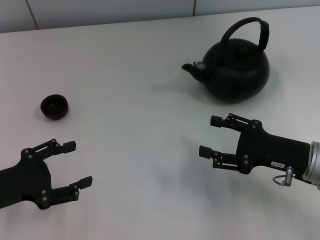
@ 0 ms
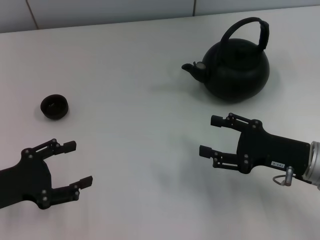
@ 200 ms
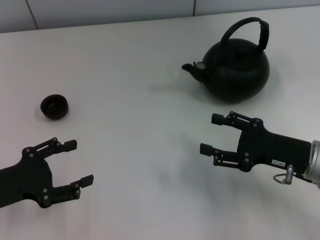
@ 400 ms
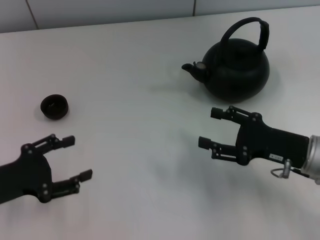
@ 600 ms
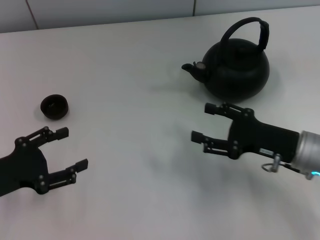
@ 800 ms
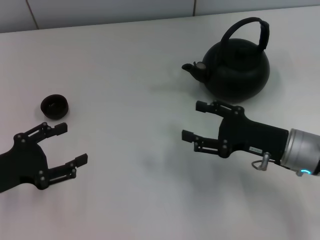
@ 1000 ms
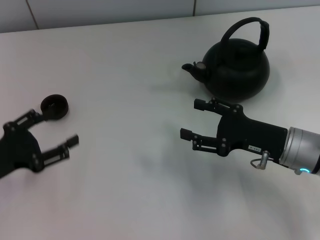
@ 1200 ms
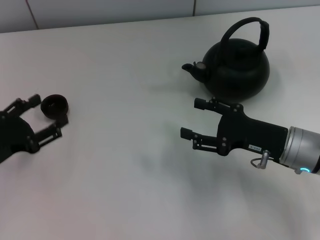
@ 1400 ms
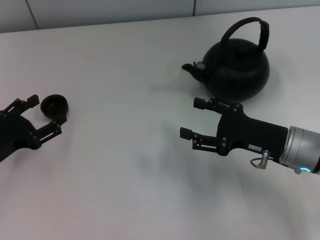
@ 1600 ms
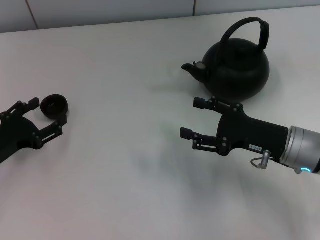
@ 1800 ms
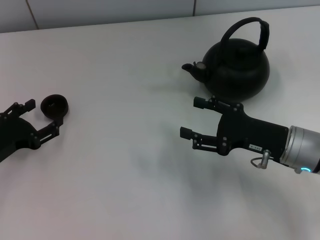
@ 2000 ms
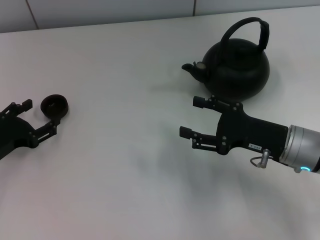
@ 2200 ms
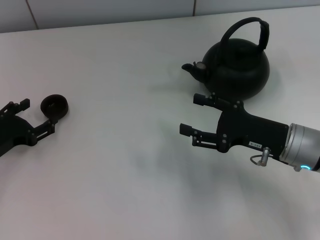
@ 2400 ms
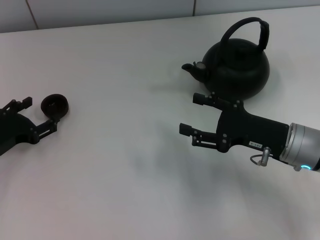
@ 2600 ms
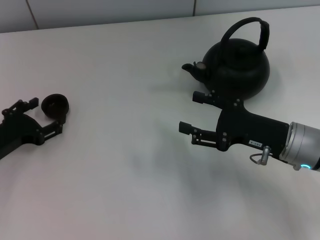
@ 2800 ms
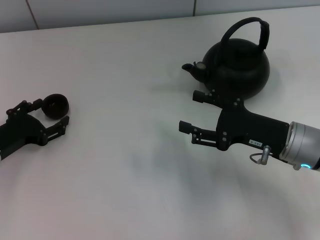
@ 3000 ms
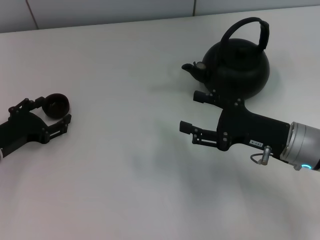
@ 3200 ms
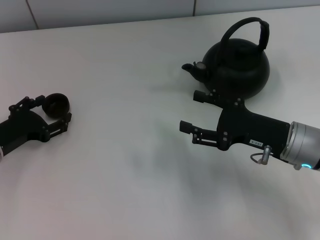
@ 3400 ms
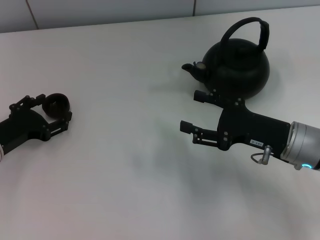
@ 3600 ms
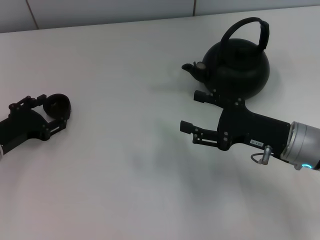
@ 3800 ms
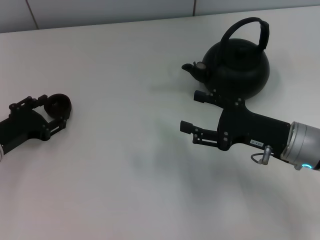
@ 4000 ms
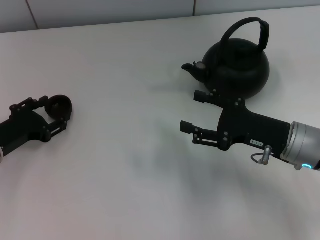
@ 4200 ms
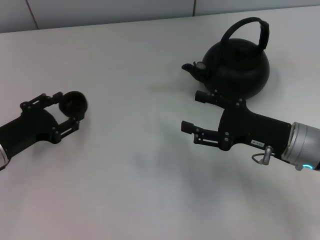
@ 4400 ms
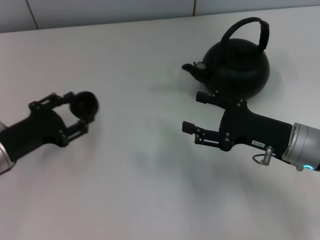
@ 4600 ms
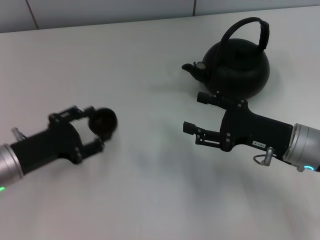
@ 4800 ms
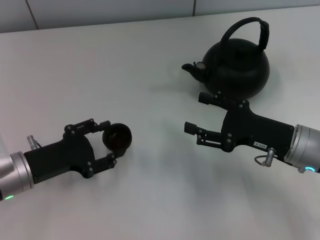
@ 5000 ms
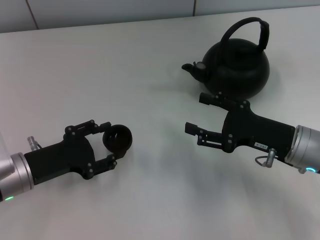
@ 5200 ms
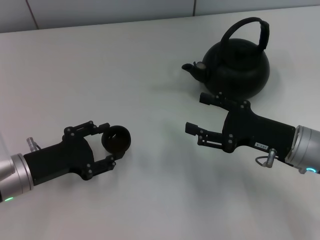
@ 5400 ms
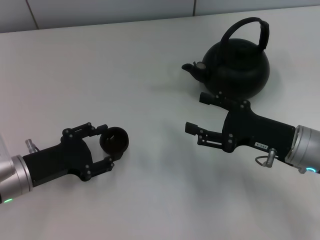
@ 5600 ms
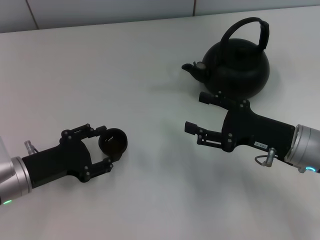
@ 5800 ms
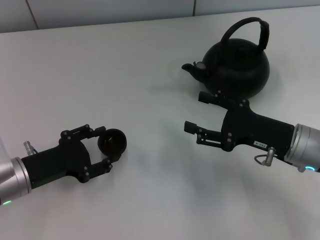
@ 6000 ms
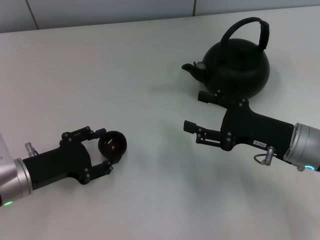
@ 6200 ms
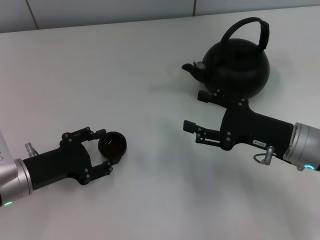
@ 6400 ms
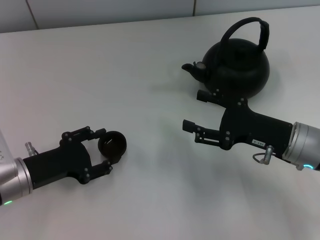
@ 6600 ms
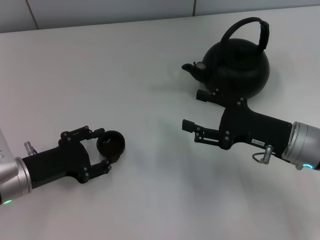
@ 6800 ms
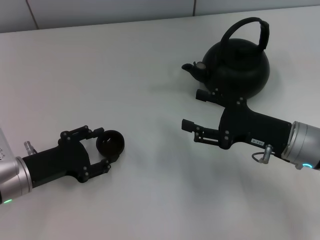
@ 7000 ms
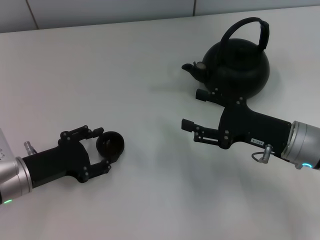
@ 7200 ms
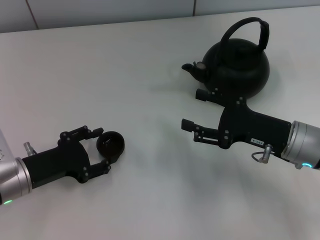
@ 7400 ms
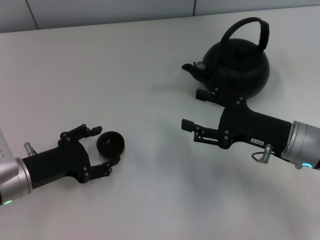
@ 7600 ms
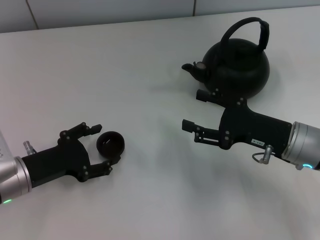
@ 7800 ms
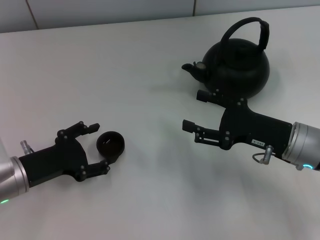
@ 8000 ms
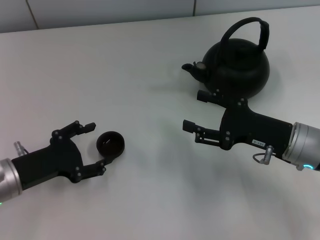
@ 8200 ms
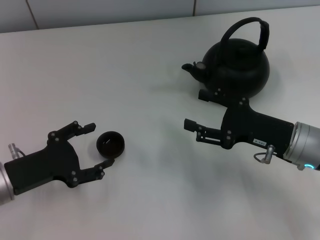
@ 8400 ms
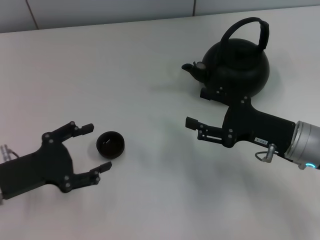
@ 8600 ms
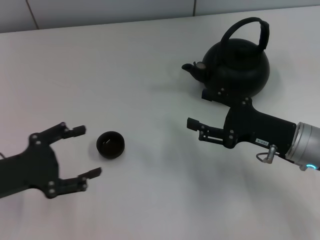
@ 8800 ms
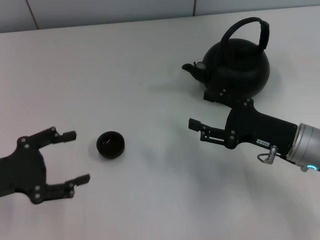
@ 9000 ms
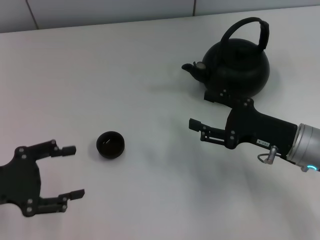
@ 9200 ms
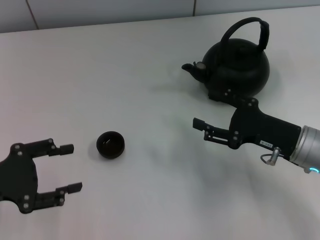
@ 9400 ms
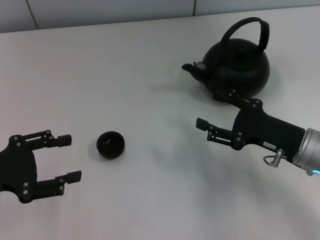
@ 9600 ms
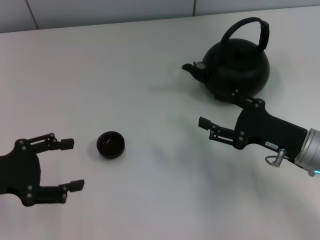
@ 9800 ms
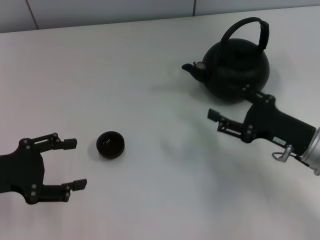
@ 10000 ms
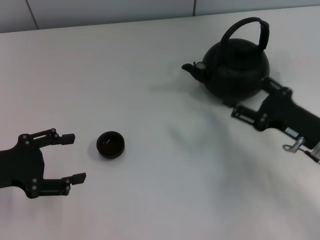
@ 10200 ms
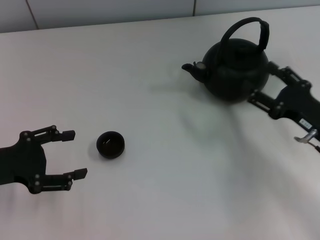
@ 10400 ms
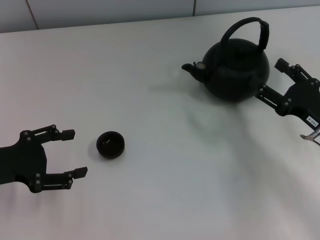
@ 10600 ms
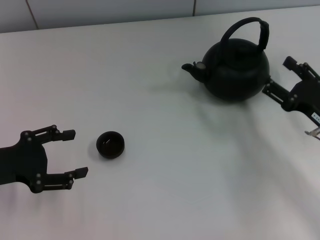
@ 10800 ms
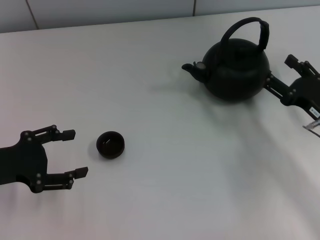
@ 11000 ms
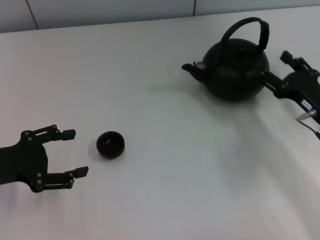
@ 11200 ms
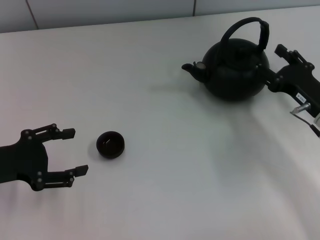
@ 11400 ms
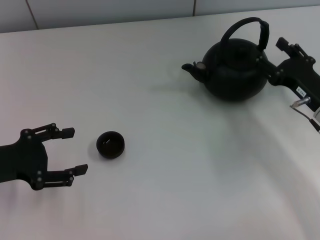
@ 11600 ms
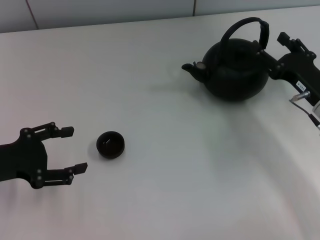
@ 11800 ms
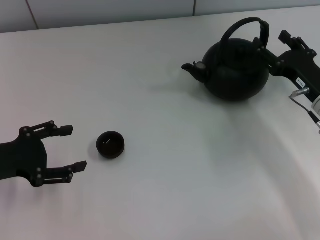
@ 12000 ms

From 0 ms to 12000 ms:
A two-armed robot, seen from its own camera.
Task of the whole recording: Grasp the handle of the teapot with one hand and pour tea into the teacup.
Step, from 0 ms to 4600 ms: Pick up the teacup with the left gripper.
Step, from 4800 ms to 8400 ms: Place the teacup in the center of view with the left gripper.
From 1600 ms to 3000 ms: The grippers make only small movements.
From 3000 ms to 4400 ms: The left gripper closes its fingers.
From 4400 ms to 6000 ms: The grippers move only a little.
From 6000 ms to 7600 ms: The left gripper opens its fingers.
From 7600 ms to 9000 ms: The left gripper goes roughly 10 cm upward and to the left.
From 9000 ms to 10400 ms: The left gripper opens up; the right gripper moves approximately 5 cm.
From 10400 ms to 12000 ms: The right gripper shifts about 5 cm forward.

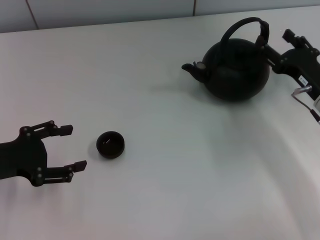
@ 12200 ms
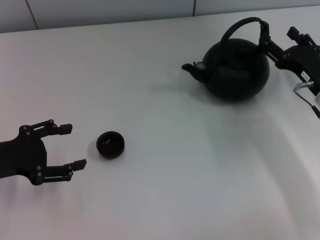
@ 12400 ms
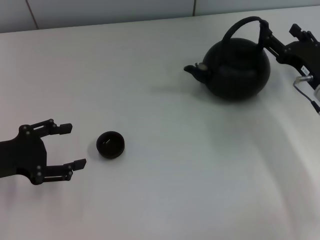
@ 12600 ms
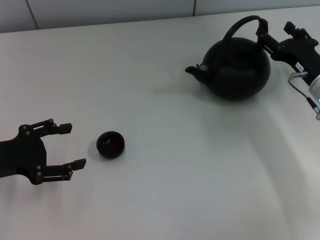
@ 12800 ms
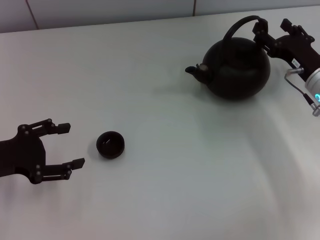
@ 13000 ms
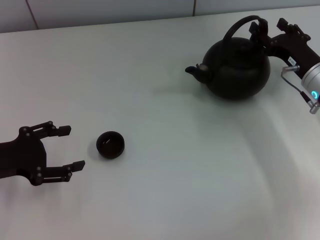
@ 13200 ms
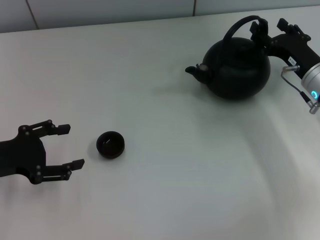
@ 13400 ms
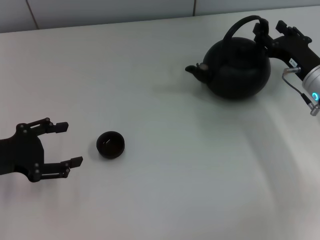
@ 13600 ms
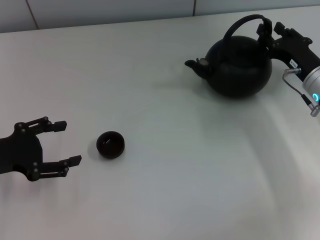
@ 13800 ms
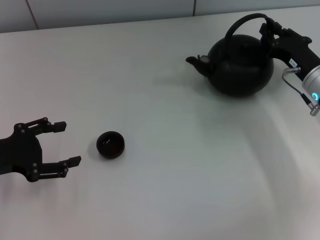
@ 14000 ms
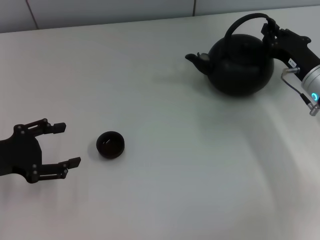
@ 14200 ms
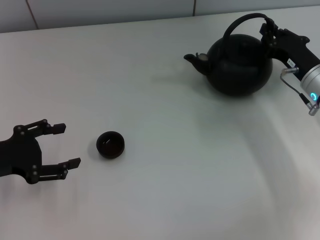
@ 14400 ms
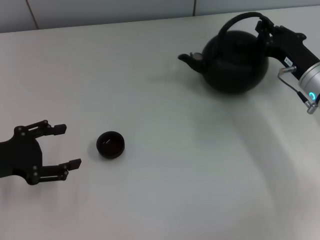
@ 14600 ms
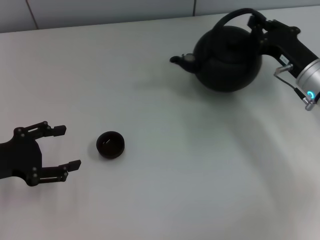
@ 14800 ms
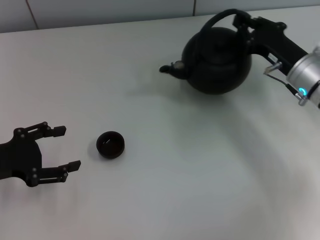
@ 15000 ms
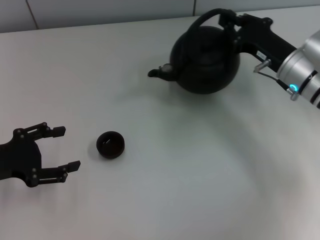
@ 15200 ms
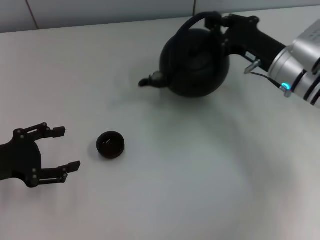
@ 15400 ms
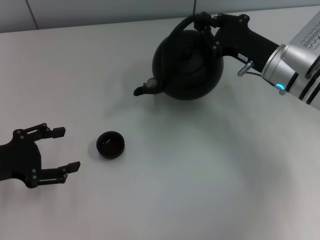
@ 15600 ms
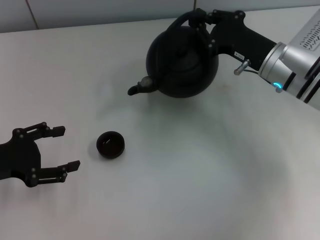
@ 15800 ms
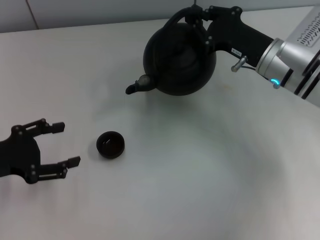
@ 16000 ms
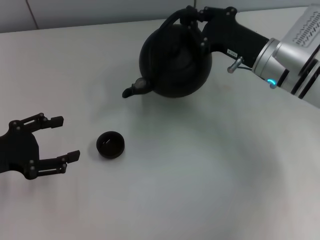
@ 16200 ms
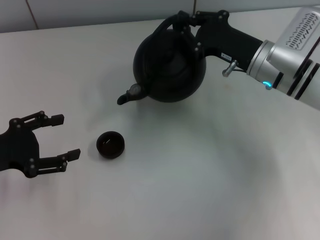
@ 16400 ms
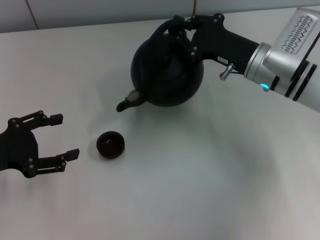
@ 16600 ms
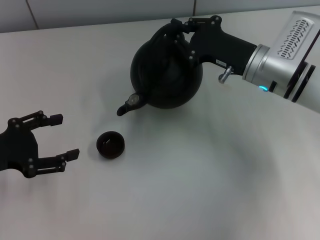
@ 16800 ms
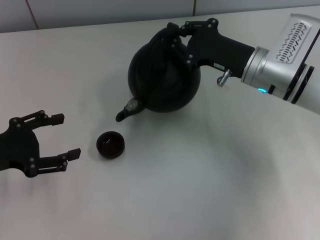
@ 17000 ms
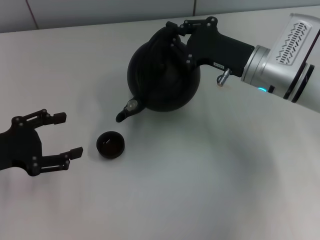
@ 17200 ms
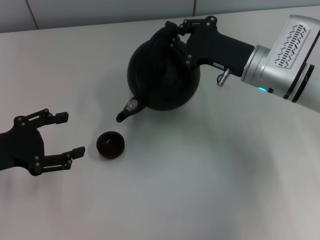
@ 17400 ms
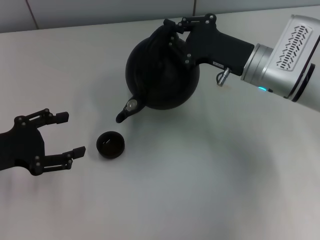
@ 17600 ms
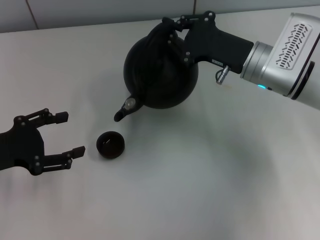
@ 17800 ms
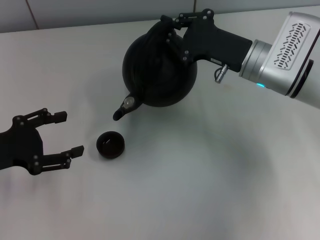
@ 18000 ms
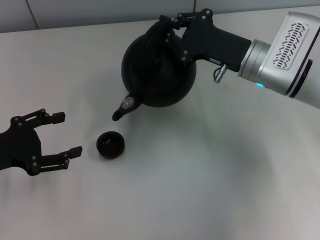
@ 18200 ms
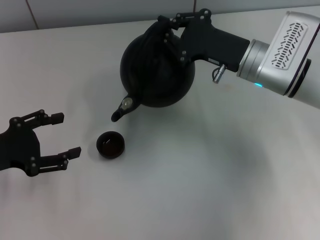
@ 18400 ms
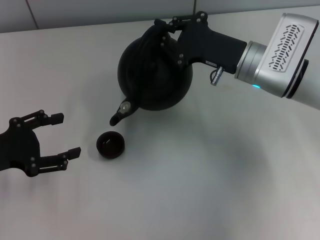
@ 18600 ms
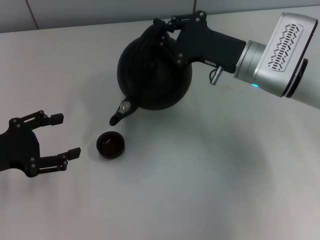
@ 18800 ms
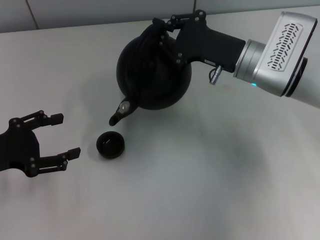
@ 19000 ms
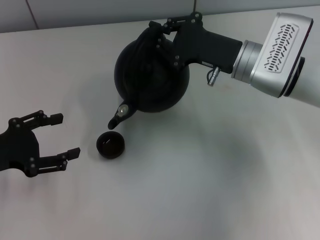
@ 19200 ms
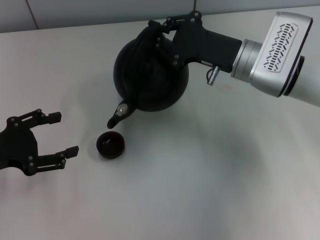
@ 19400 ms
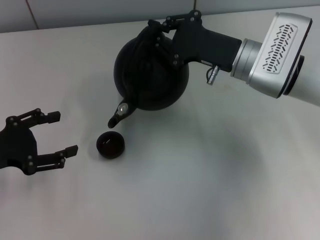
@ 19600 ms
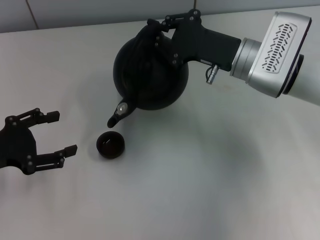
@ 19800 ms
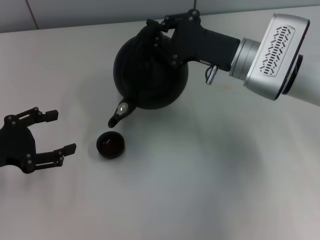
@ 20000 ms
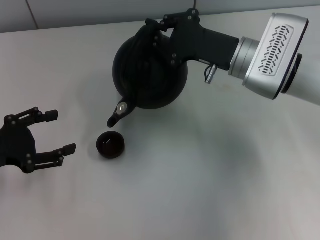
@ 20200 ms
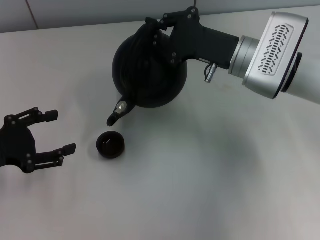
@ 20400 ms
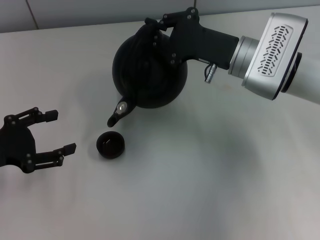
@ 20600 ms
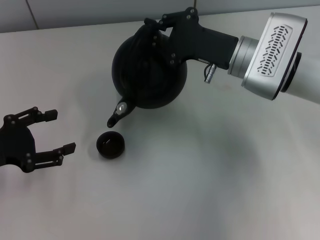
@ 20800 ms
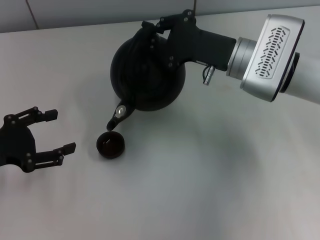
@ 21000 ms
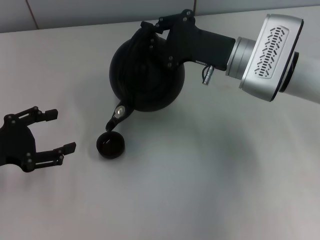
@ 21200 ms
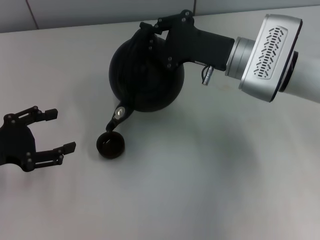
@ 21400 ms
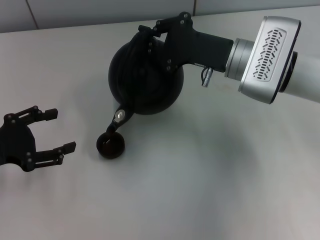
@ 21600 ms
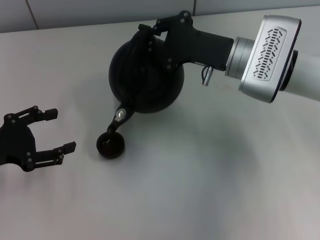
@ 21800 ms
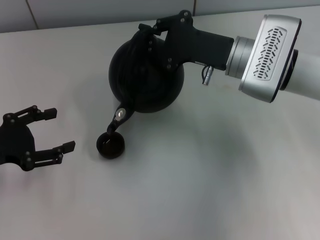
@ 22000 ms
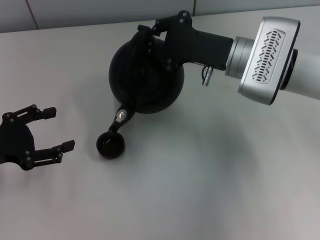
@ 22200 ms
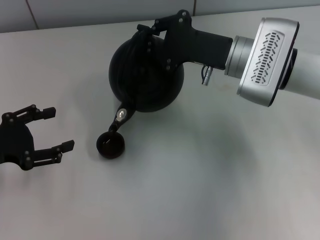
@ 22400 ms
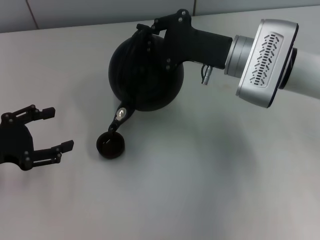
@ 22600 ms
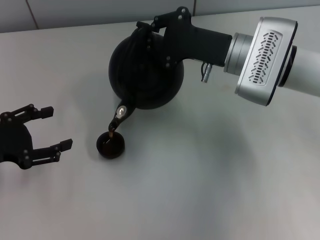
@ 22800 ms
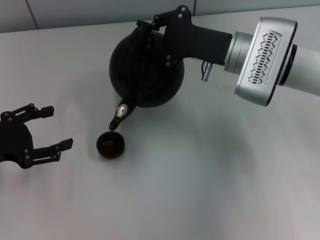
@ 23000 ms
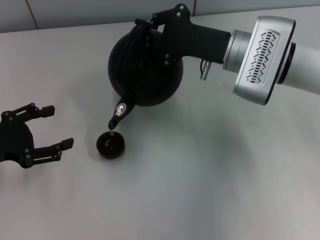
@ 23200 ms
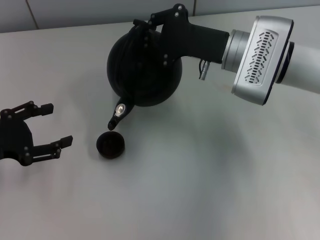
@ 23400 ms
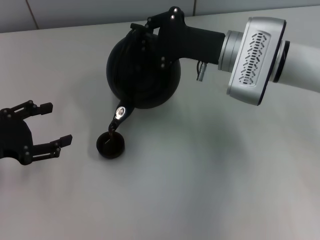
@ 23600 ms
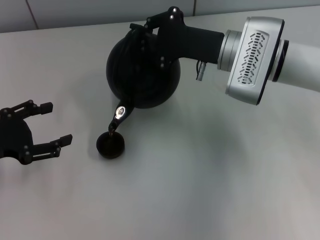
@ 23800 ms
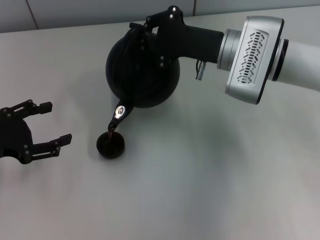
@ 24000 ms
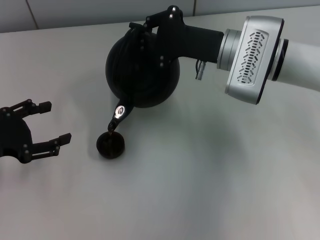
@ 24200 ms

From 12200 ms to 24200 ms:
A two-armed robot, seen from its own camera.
Task of the whole recording: Grasp the handle of the teapot with one hand and pour tea into the teacup.
Step, from 12200 ms to 14800 ms: Pick up the teapot with the right gripper.
From 12200 ms to 13800 ms: The grippers stay close to where they were, moving slightly.
From 13800 ms to 15200 ms: The right gripper shifts by about 5 cm, and closes up.
From 15200 ms to 16600 ms: The right gripper ends up some 5 cm from where it was.
From 16600 ms to 19800 ms: The grippers move only a little.
From 19800 ms to 21200 ms: The two grippers keep their place.
From 21200 ms to 24200 ms: The grippers stay close to where they were, moving slightly.
